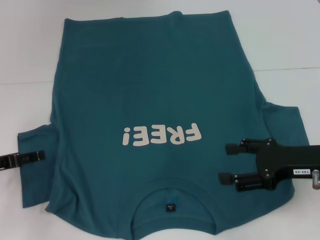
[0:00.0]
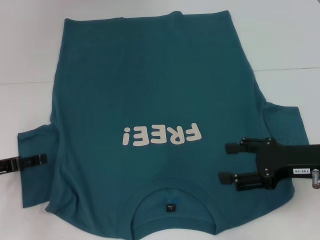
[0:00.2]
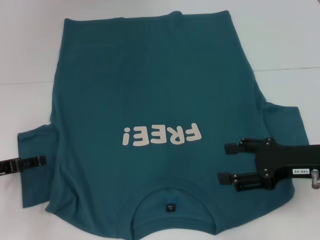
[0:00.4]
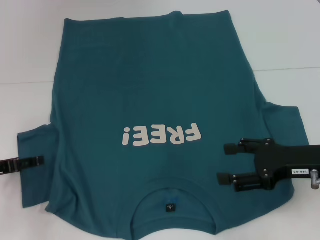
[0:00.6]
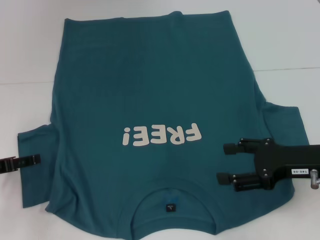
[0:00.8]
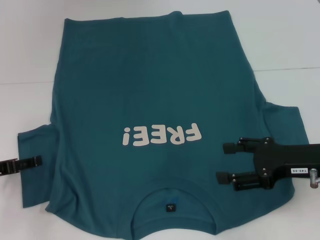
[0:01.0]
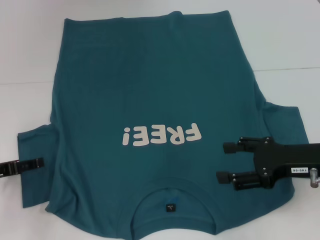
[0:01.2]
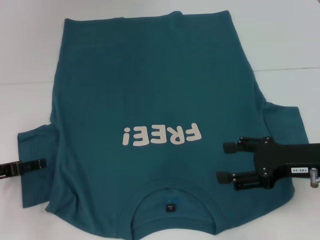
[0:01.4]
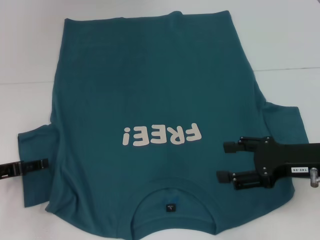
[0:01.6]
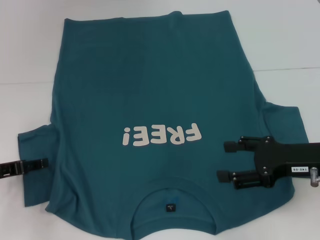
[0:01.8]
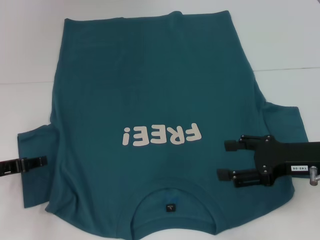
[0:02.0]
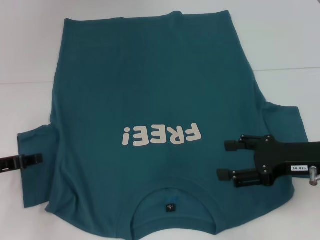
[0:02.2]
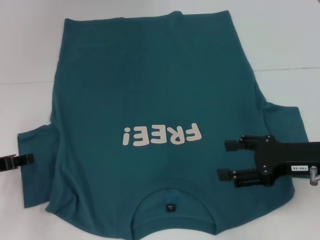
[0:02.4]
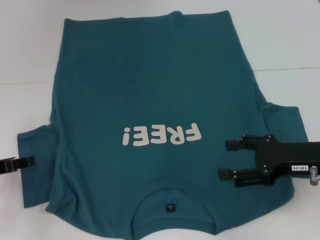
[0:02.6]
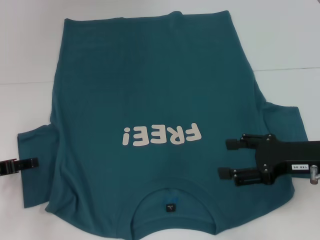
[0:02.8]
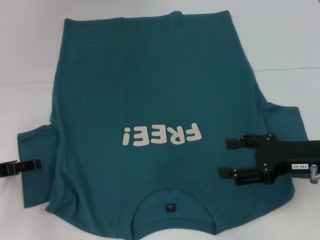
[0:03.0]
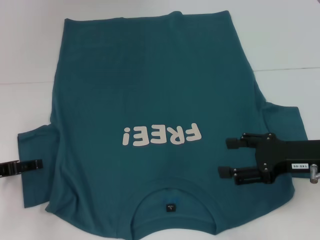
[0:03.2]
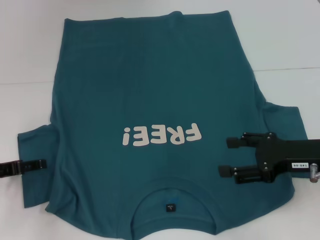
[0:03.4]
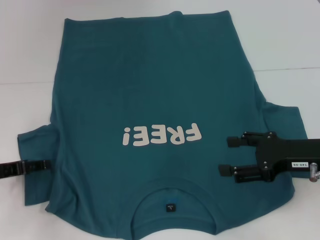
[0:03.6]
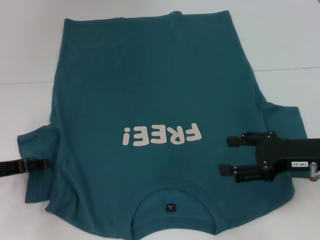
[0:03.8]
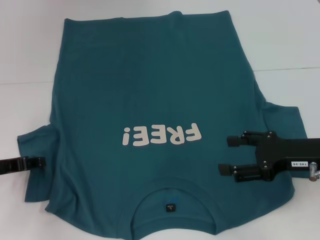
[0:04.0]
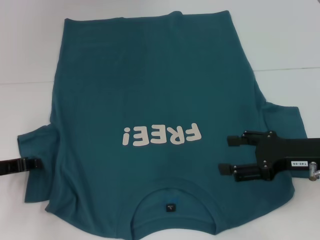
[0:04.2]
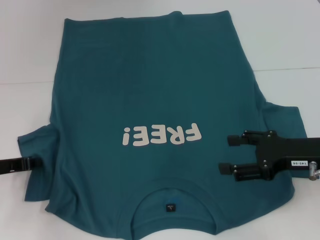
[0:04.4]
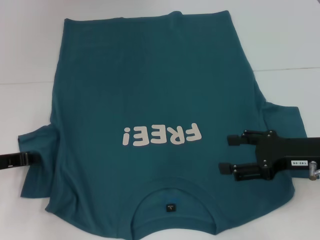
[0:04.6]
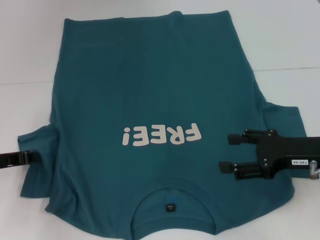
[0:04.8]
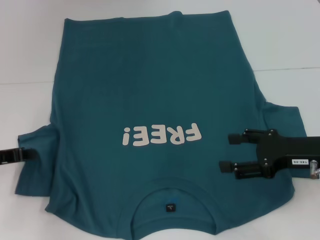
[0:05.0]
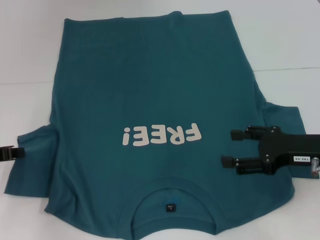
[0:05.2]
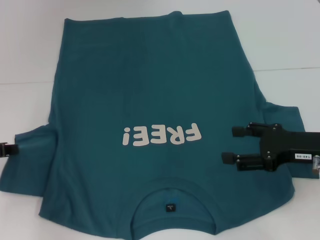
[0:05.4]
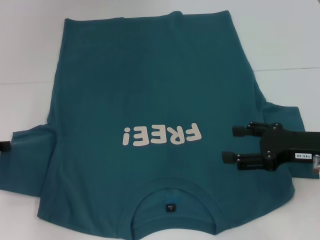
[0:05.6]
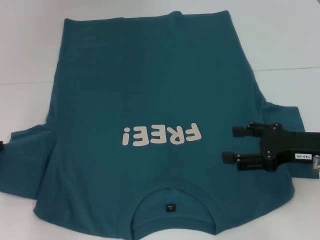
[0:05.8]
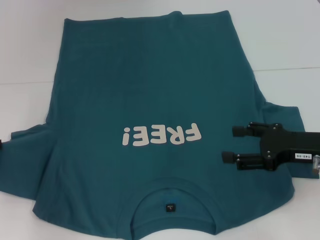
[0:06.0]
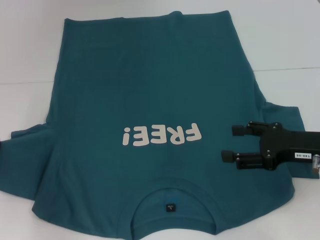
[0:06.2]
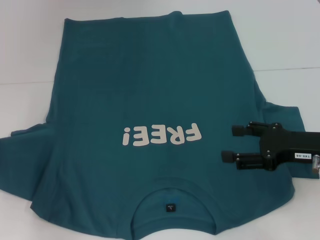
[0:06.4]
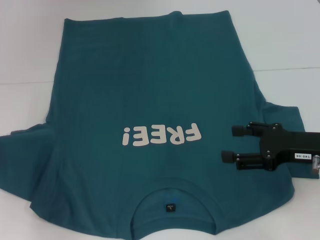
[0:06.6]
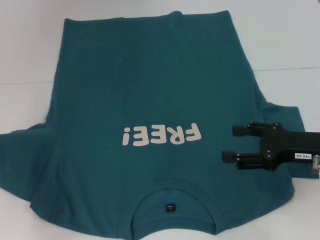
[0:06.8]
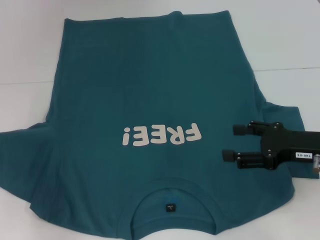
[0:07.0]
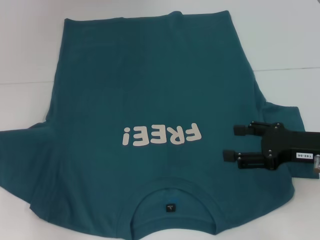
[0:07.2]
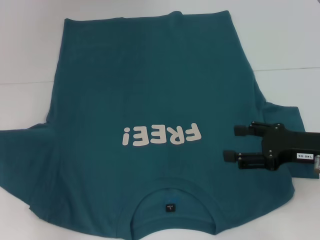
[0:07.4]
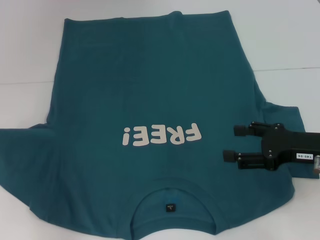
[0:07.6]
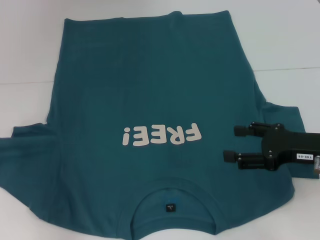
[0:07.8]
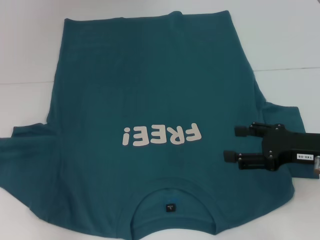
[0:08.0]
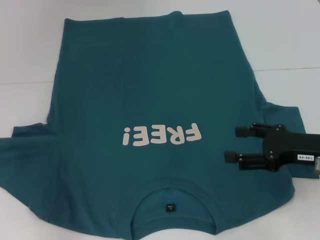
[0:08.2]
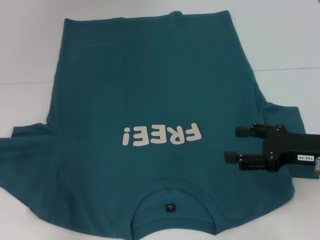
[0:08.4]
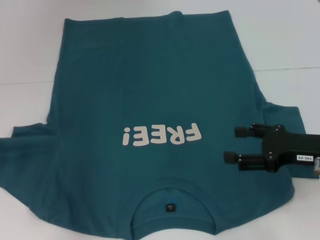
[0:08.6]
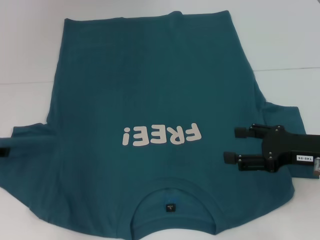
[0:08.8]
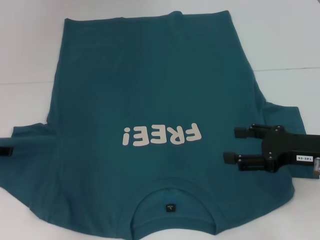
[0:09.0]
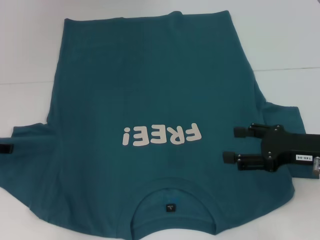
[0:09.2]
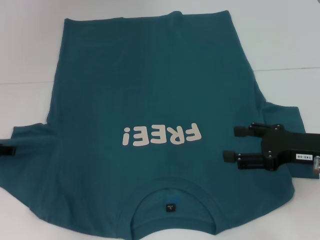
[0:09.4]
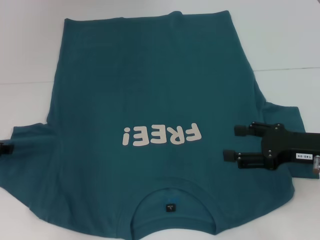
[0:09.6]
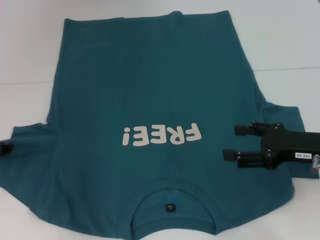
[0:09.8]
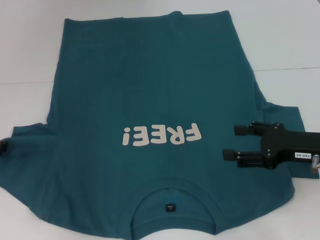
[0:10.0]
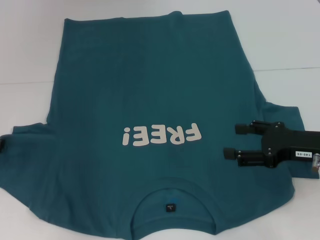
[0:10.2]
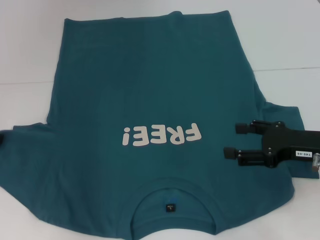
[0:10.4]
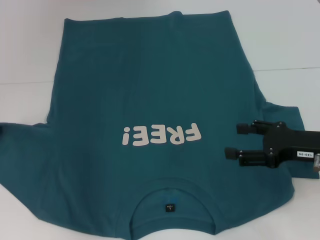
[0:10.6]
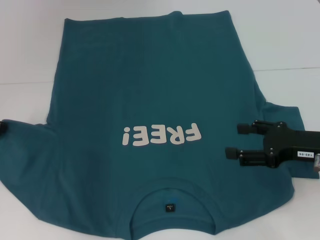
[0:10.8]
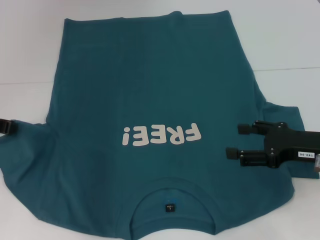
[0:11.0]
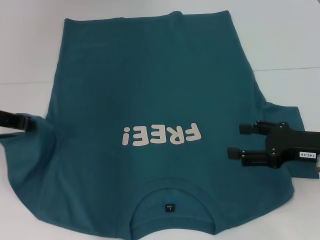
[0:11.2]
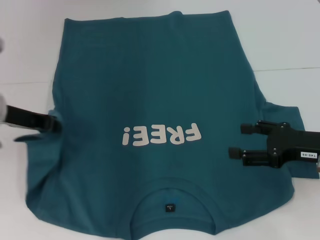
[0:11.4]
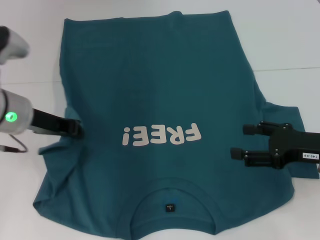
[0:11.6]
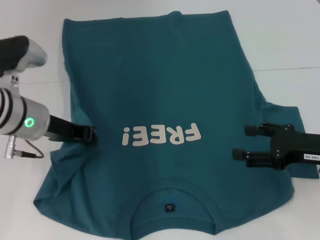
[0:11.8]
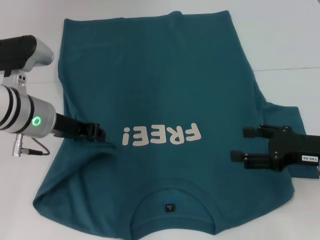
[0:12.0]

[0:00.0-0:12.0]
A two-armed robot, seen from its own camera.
0:00.0 to 0:03.0: Both grippers stay put.
0:03.0 to 0:04.4: The left gripper closes.
0:04.4 to 0:06.0: The left gripper shifts about 5 cm upward.
0:10.4 to 0:12.0: The left gripper moves to the right, some 15 cm.

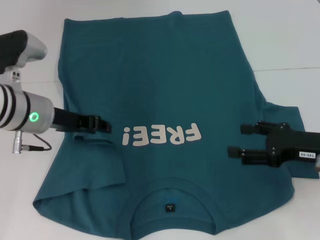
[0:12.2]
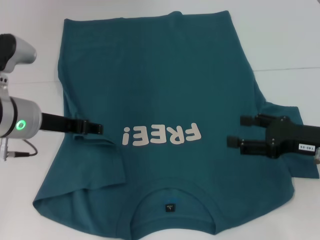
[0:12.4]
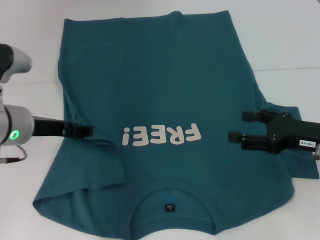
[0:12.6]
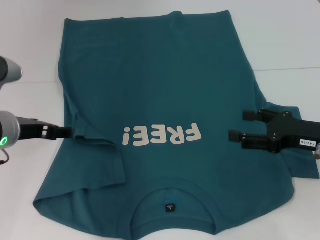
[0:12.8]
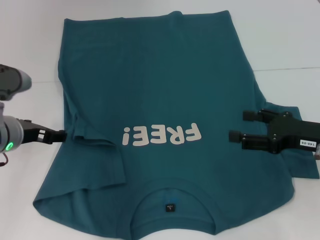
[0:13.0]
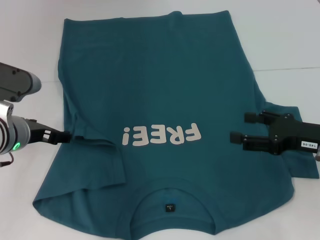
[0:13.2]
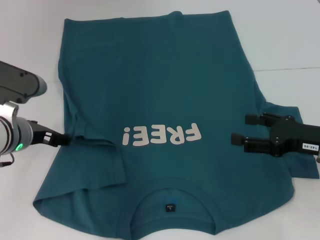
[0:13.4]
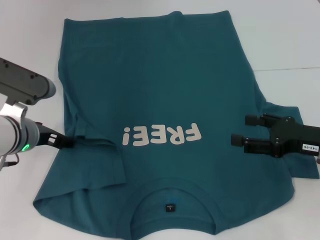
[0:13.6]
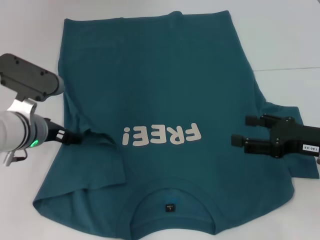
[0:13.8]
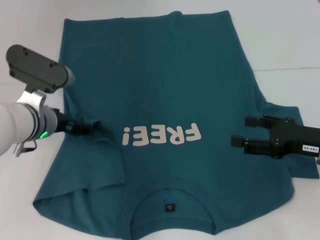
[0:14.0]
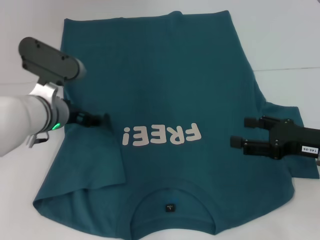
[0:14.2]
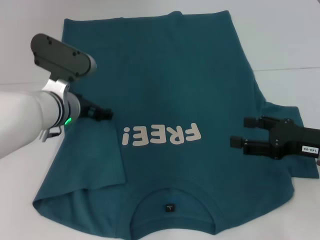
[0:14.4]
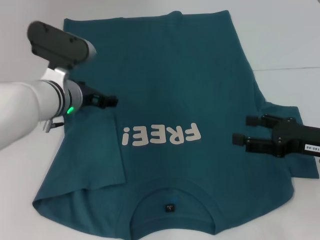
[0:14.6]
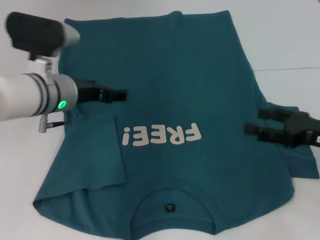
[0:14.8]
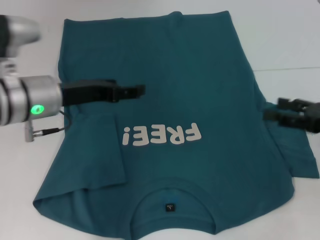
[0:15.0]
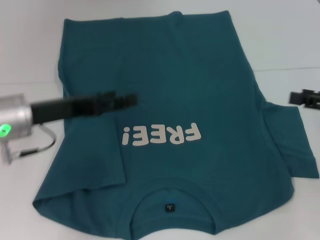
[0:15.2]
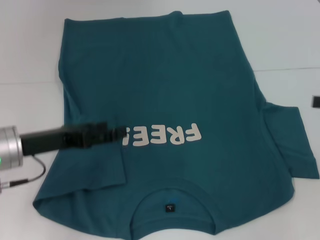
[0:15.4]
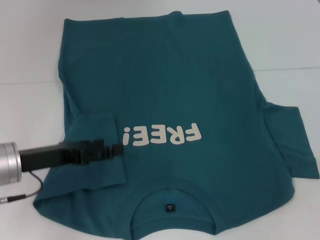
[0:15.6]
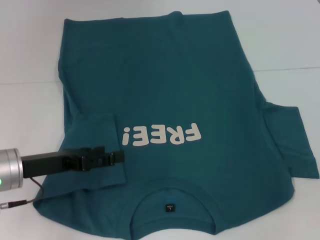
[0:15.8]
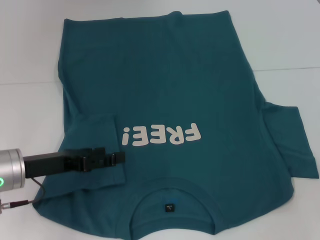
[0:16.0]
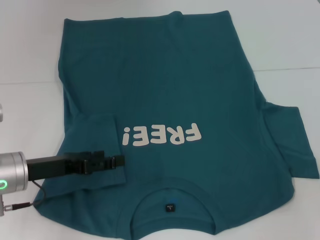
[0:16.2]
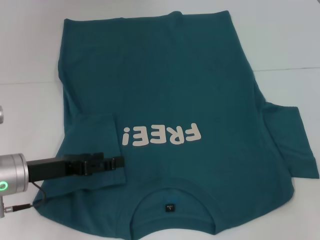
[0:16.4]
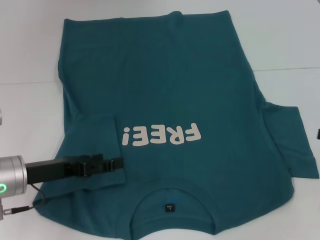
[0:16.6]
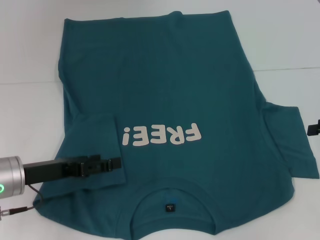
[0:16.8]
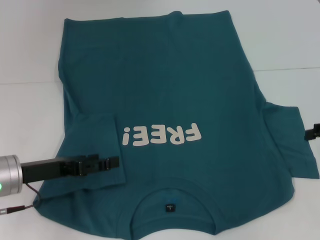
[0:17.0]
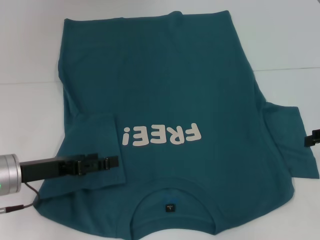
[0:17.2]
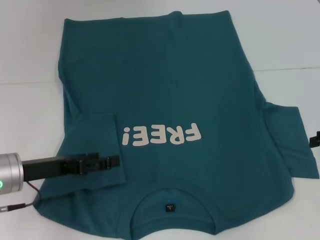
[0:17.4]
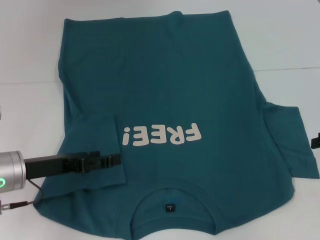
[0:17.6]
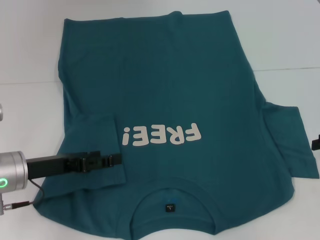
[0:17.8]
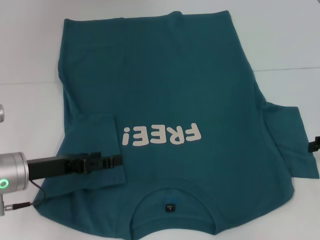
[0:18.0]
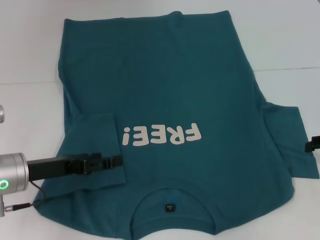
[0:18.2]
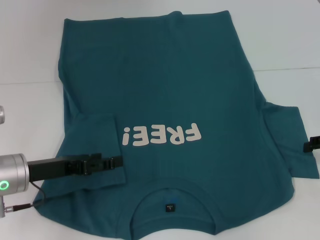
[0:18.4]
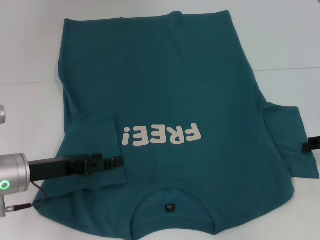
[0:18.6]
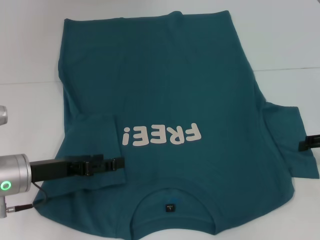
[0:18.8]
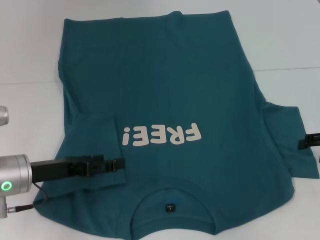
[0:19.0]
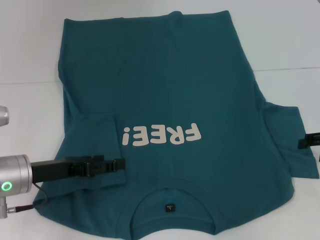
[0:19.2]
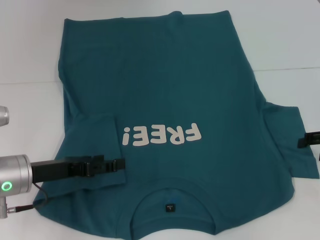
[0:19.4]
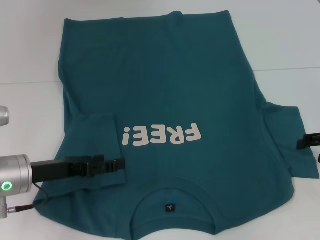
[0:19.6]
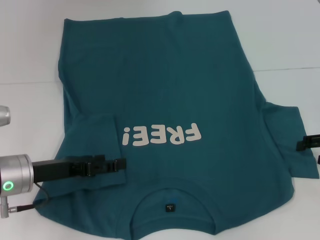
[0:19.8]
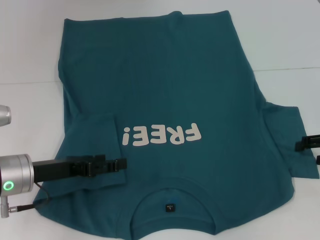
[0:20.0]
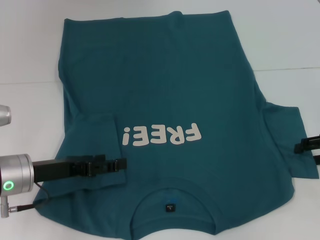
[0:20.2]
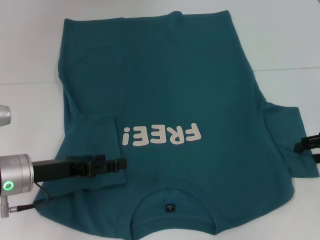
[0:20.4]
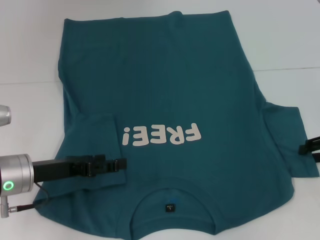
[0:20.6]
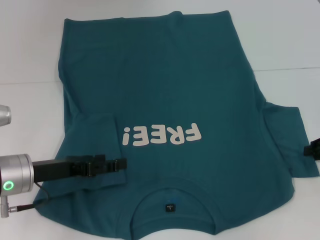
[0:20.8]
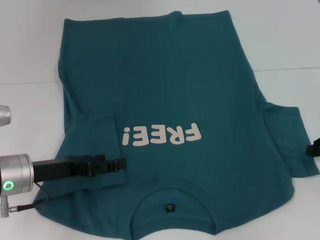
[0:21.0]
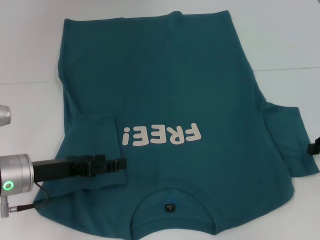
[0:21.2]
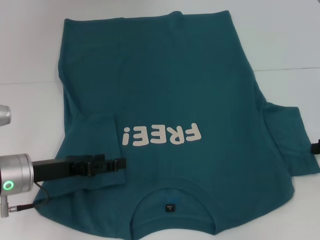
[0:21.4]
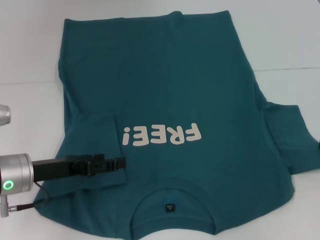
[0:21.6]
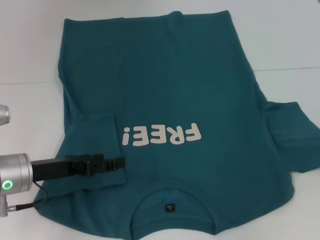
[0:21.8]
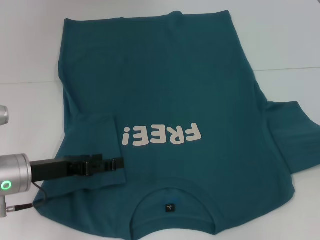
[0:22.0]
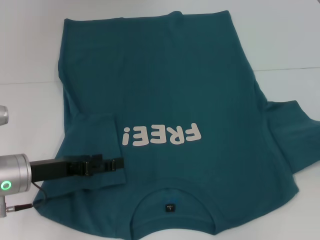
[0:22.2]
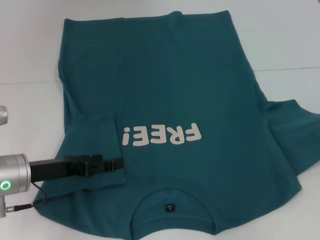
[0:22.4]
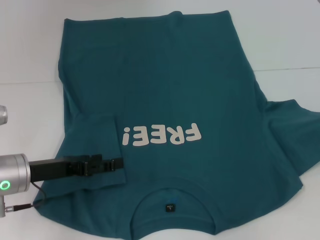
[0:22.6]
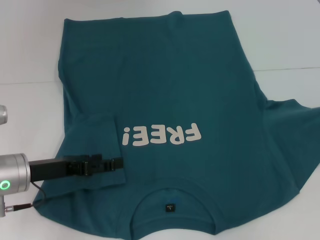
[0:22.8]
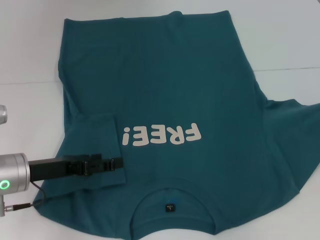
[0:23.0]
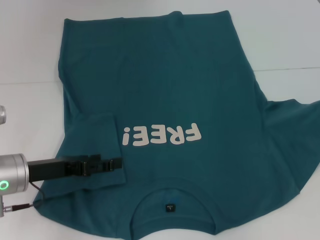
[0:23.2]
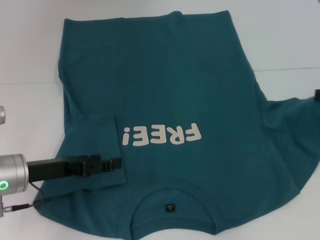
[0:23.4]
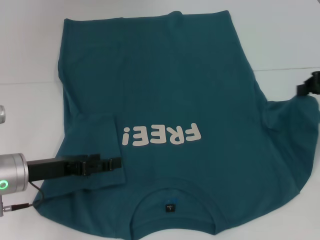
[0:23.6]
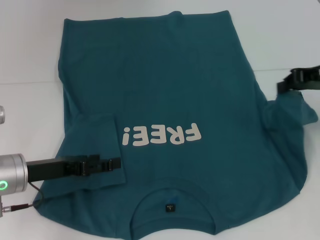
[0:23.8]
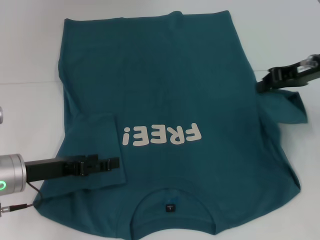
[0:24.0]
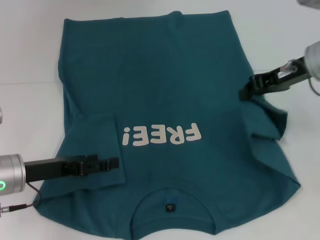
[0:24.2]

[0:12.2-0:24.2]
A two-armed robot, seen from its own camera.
Step, 0:12.2 to 0:14.2: Fold the bottom left sleeve with your left hand.
0:12.2 to 0:13.8: The left gripper goes roughly 5 cm downward, and opens up.
0:13.8 to 0:15.2: The right gripper moves to the right and upward, about 10 cm. The left gripper goes to the right and returns, some 5 cm each way.
0:15.2 to 0:16.6: The left gripper moves downward, roughly 5 cm.
0:16.6 to 0:19.8: There are only small adjustments of the grippers.
0:21.2 to 0:22.6: The right gripper shifts by about 5 cm.
0:22.6 to 0:24.2: The right gripper is displaced to the left and forward by roughly 15 cm.
